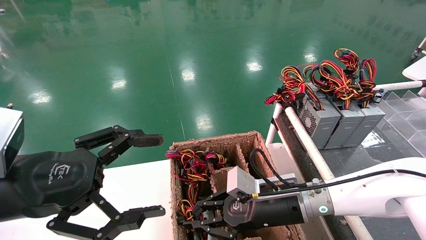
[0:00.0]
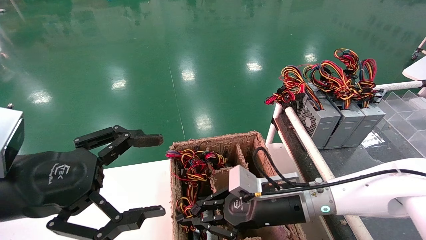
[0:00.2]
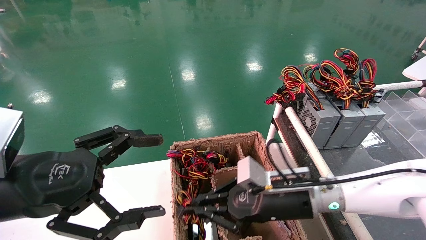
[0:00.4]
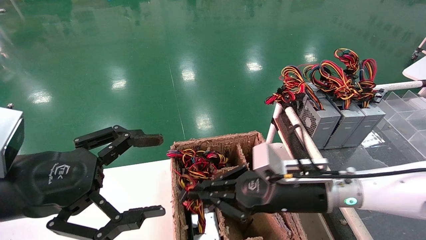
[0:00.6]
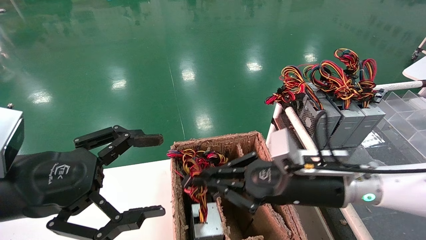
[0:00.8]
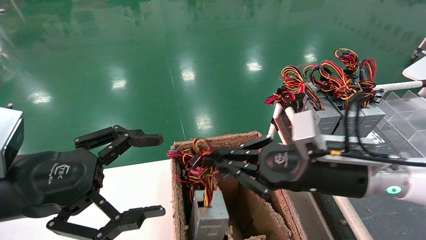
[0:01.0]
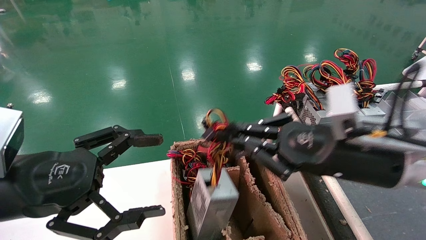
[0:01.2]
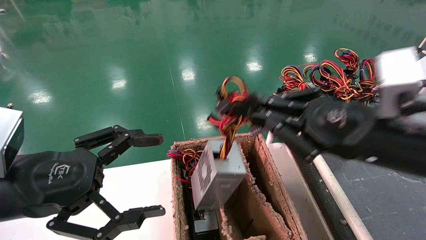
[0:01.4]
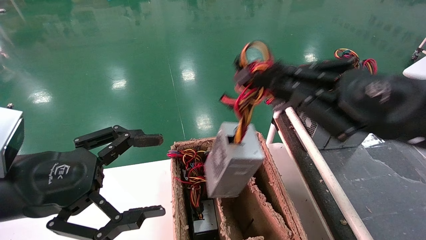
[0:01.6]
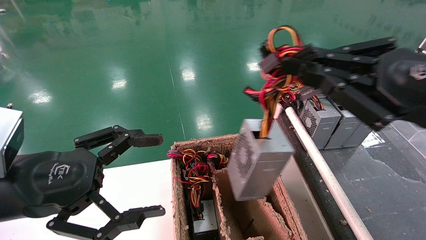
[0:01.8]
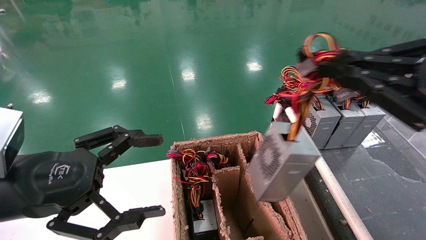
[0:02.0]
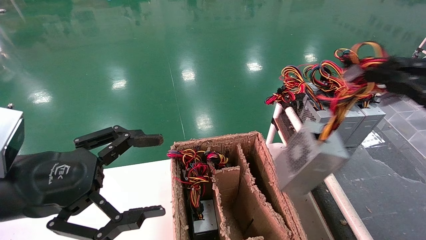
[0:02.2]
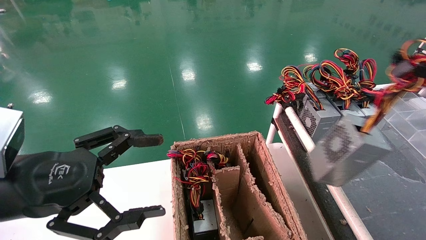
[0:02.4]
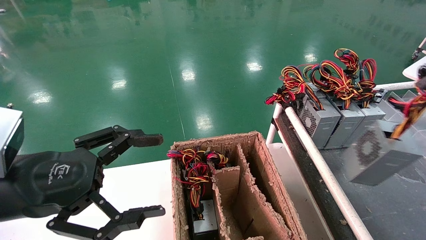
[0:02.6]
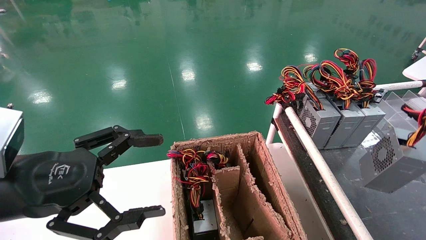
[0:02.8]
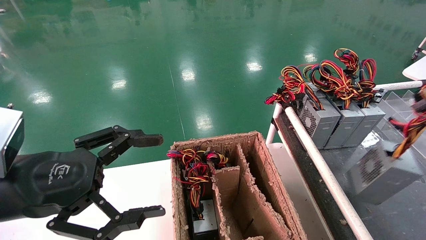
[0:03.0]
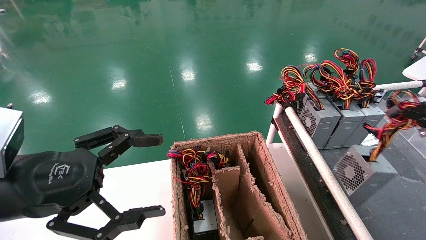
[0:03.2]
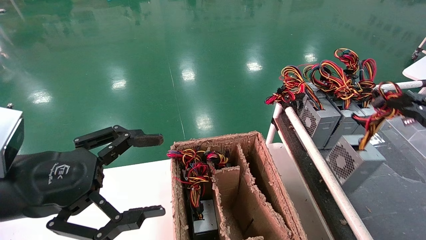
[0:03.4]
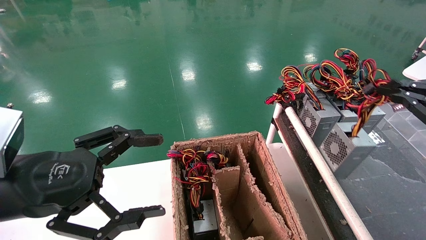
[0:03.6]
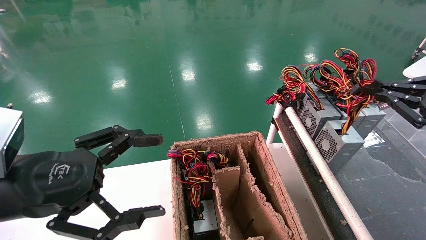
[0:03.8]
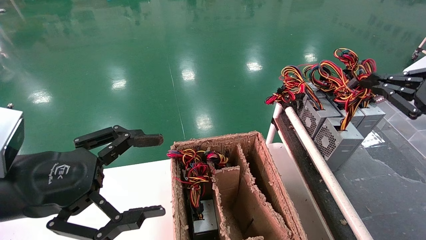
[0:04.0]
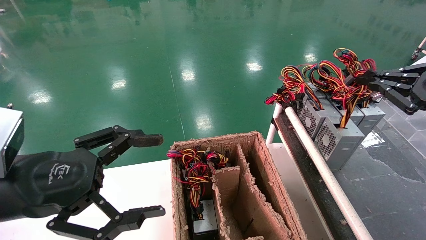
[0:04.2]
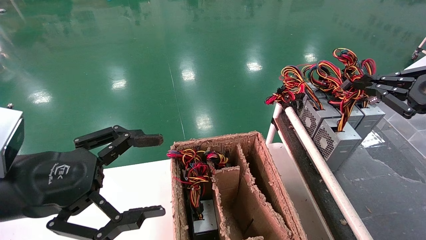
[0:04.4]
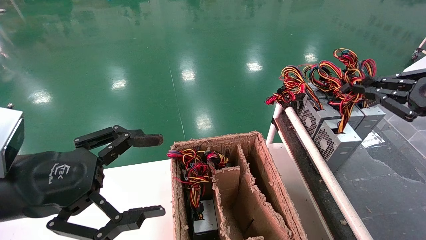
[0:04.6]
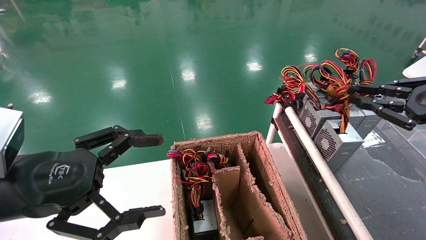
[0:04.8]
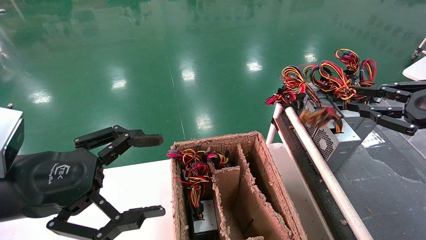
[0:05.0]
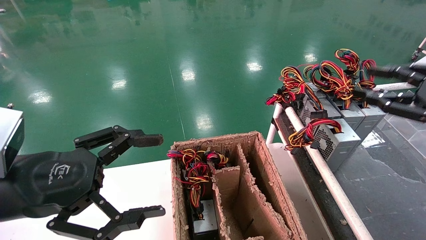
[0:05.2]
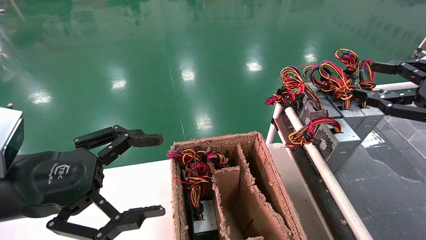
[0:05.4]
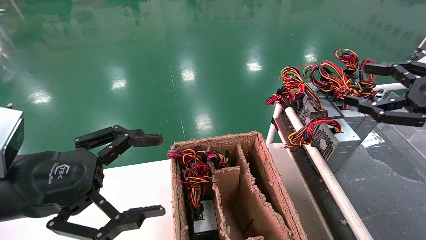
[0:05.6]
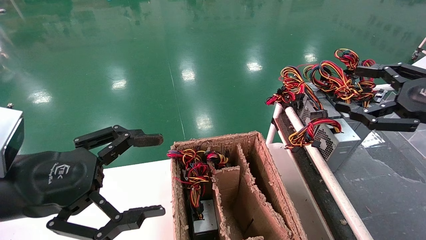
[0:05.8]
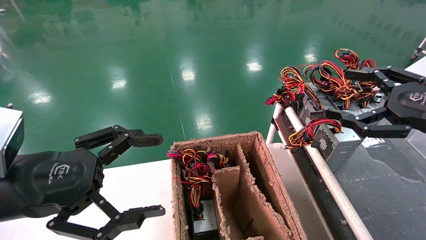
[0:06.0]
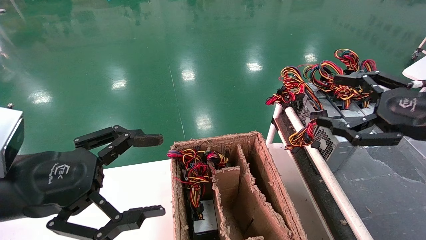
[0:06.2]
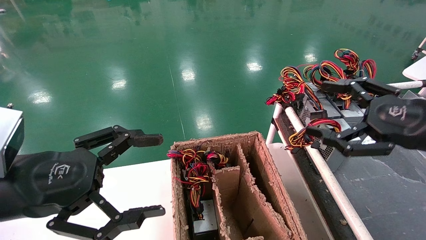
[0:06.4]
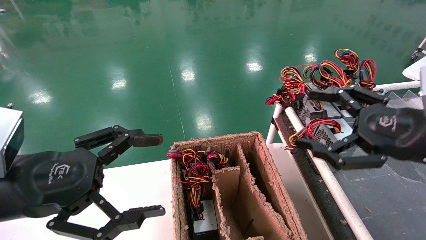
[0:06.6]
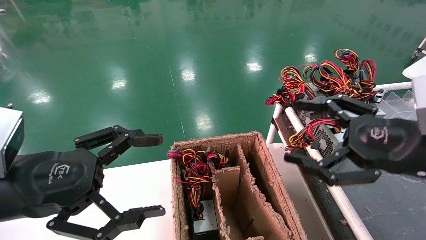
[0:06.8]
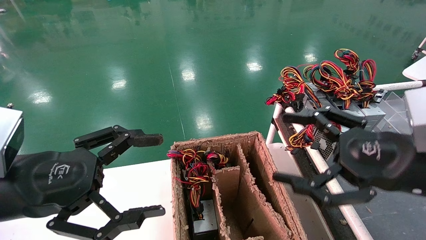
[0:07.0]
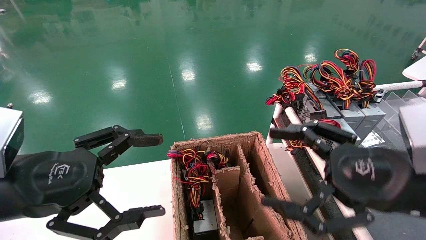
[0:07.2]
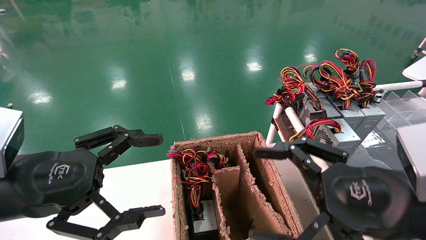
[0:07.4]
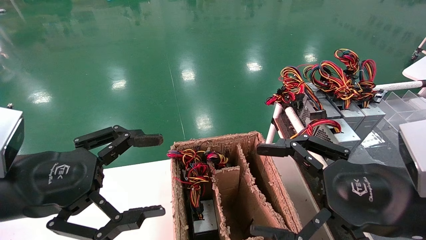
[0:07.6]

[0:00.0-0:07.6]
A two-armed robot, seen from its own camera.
Step, 0:00.6 to 0:04.6: Place the power supply on the operating table.
0:00.0 to 0:01.6: The right gripper shifts approximately 25 cm upward, to the right and backward.
0:01.6 to 0:03.0: The right gripper shifts about 20 cm to the right.
0:03.0 to 0:04.6: The right gripper shifts some 10 cm forward.
0:04.6 to 0:06.0: The right gripper shifts roughly 5 cm to the left, and opens up.
0:06.0 to 0:07.6: The right gripper moves to the left, backward and downward, approximately 15 cm.
